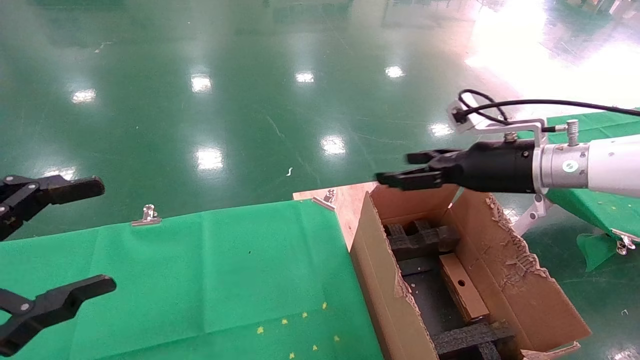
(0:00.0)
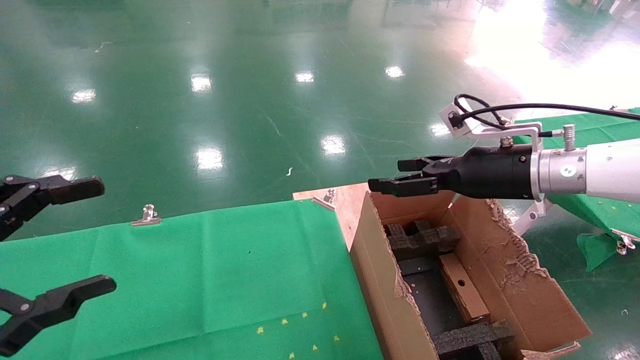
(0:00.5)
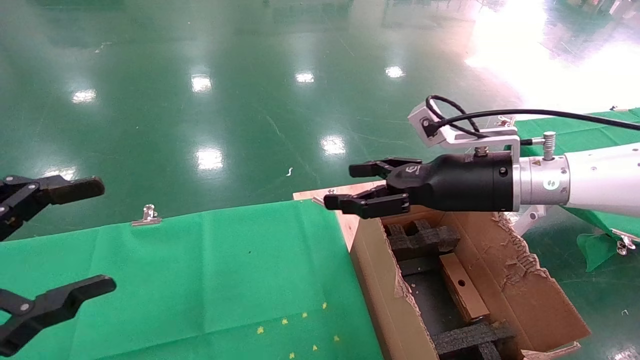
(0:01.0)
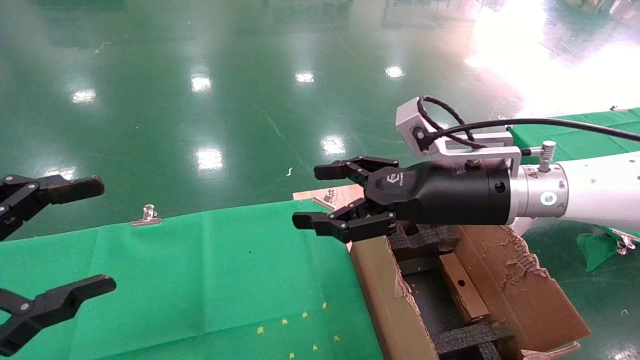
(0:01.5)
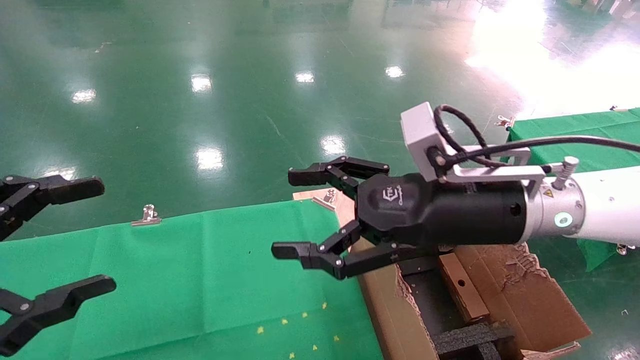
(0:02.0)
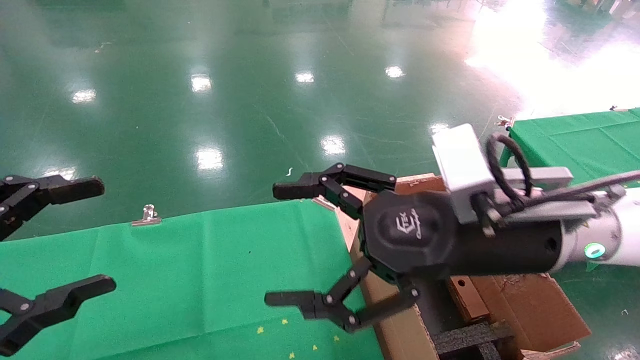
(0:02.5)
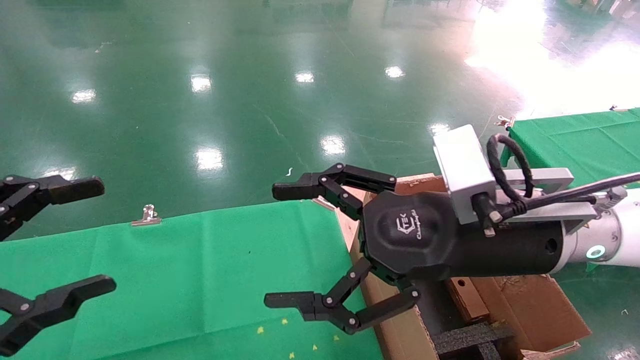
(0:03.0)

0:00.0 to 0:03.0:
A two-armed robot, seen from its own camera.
Task of the whole recording: using a robotic arm to pick up a cardboard box and palace it the carton.
0:00.0 to 0:01.5: The right gripper is displaced to the left and backward by about 10 cm.
0:01.5 to 0:03.0: The right gripper is displaced backward by about 10 cm.

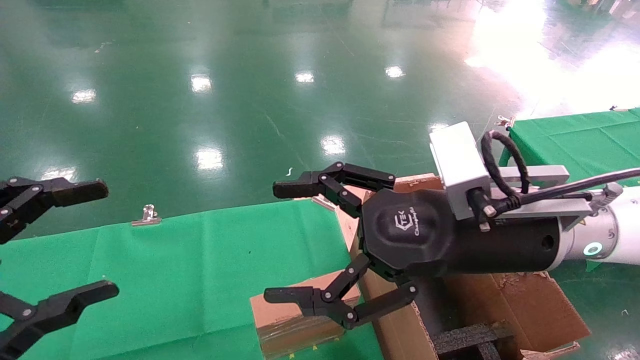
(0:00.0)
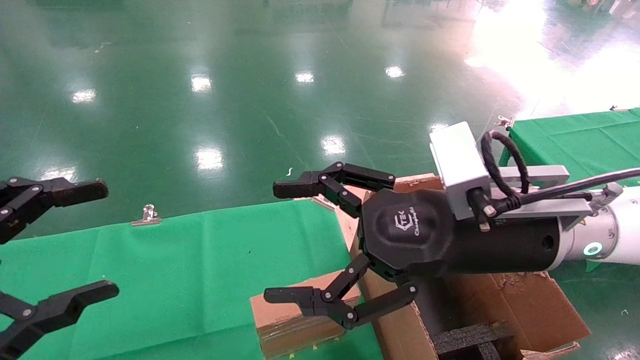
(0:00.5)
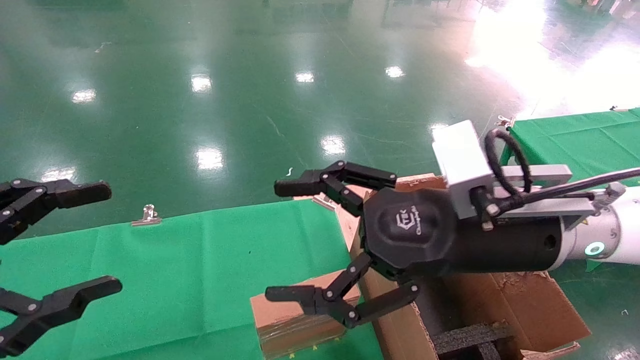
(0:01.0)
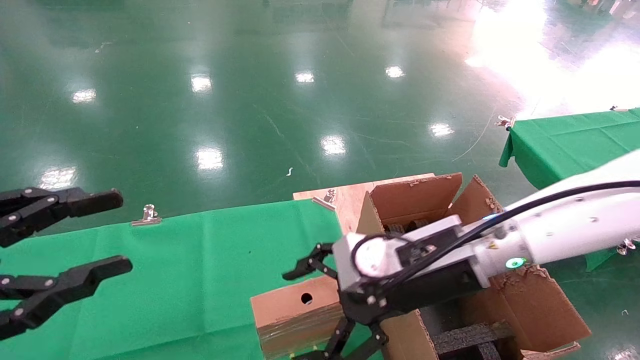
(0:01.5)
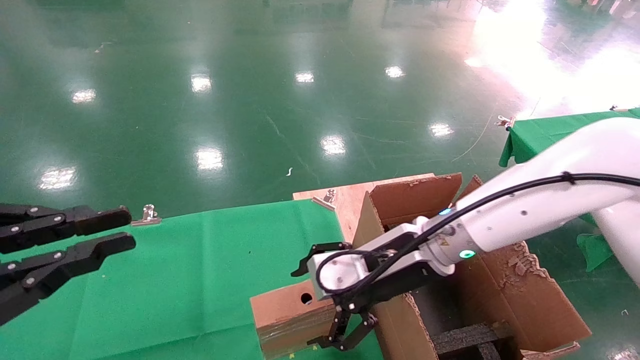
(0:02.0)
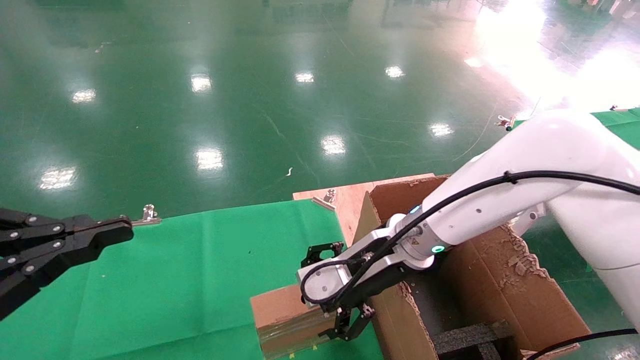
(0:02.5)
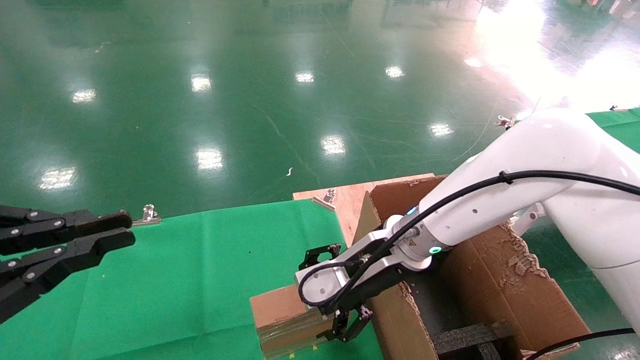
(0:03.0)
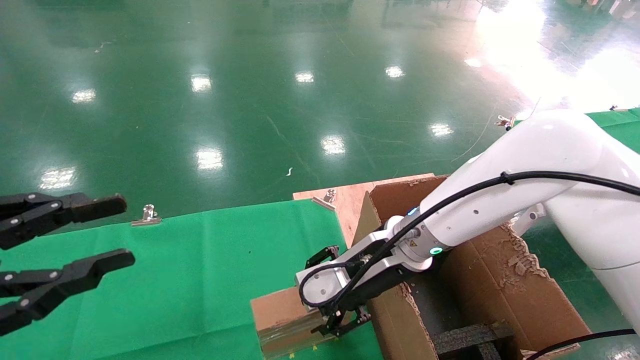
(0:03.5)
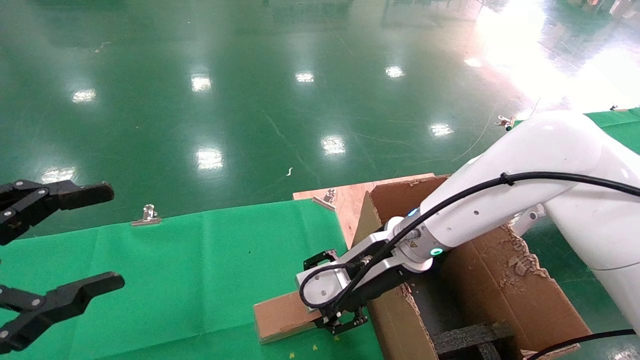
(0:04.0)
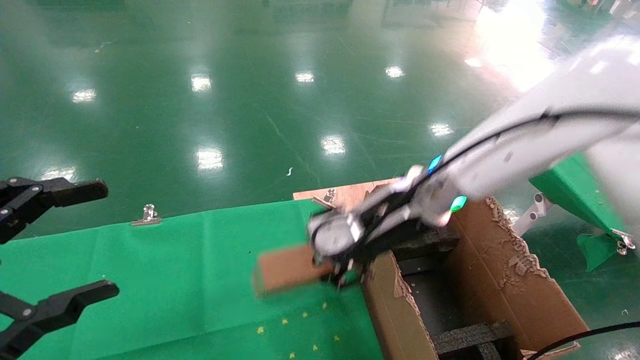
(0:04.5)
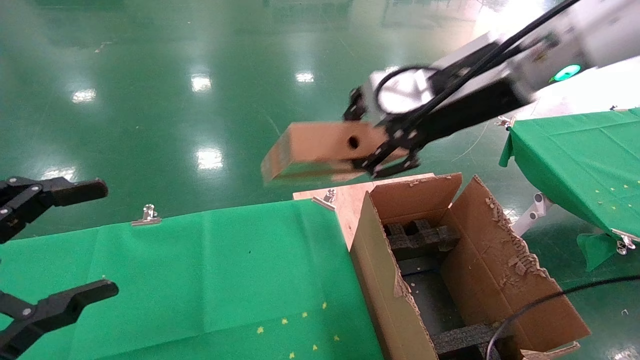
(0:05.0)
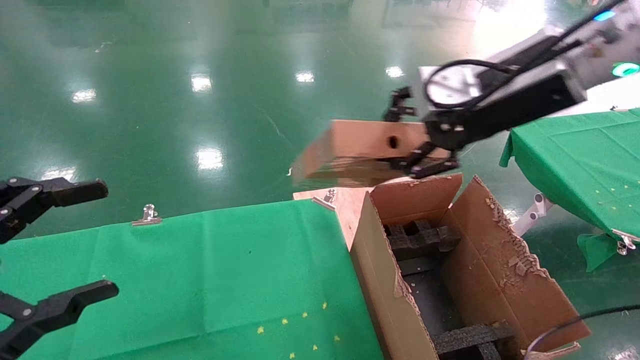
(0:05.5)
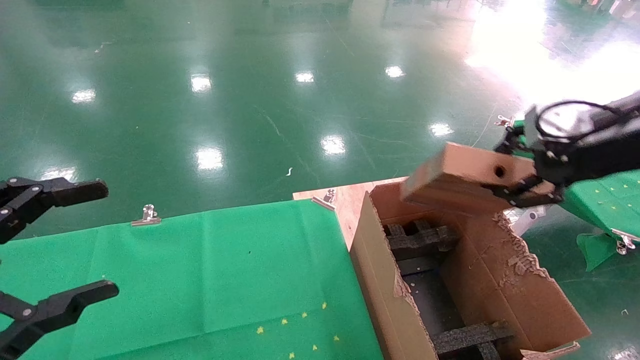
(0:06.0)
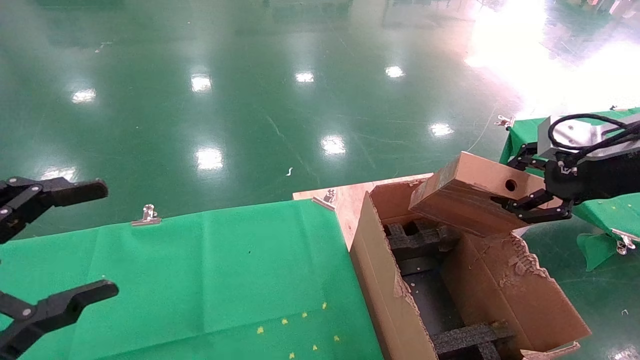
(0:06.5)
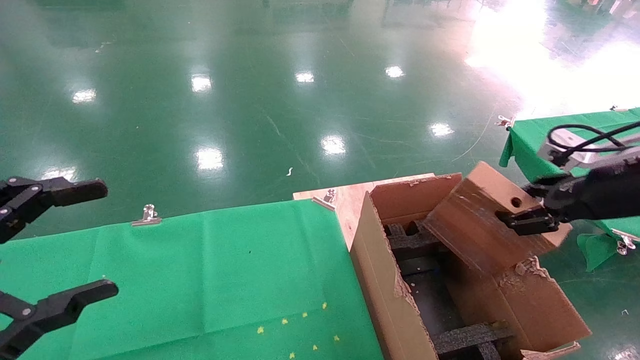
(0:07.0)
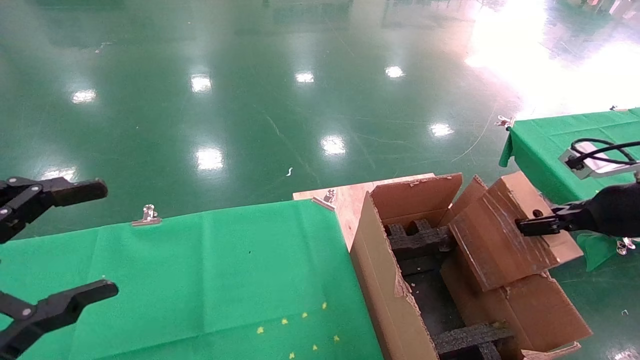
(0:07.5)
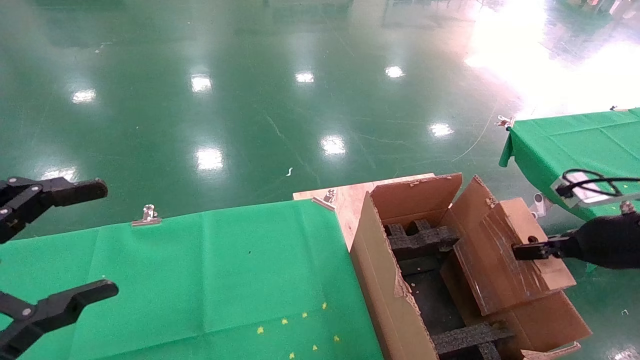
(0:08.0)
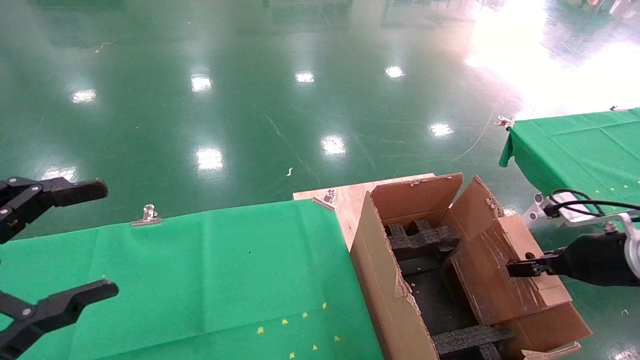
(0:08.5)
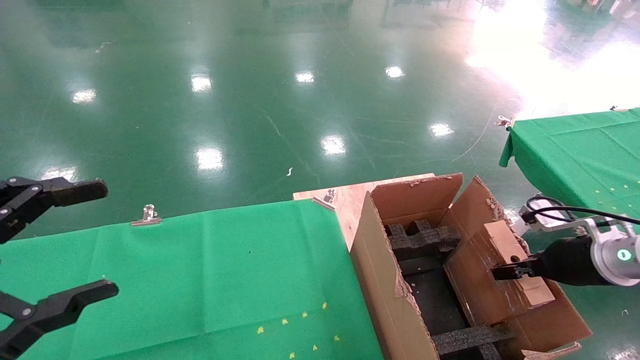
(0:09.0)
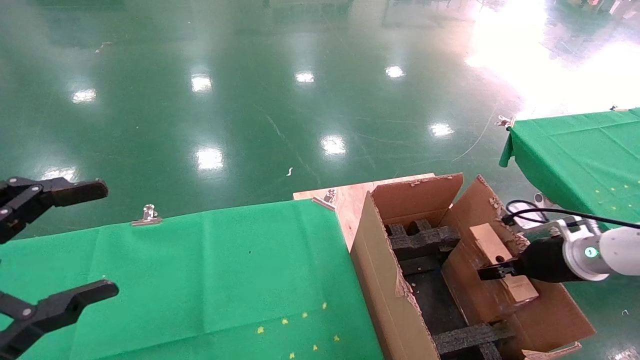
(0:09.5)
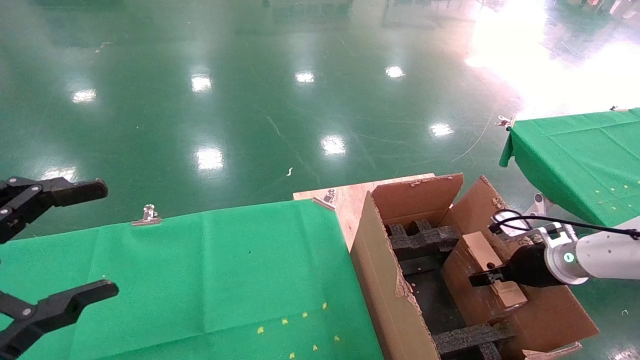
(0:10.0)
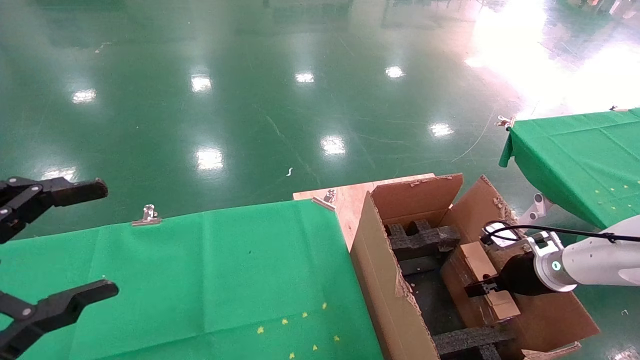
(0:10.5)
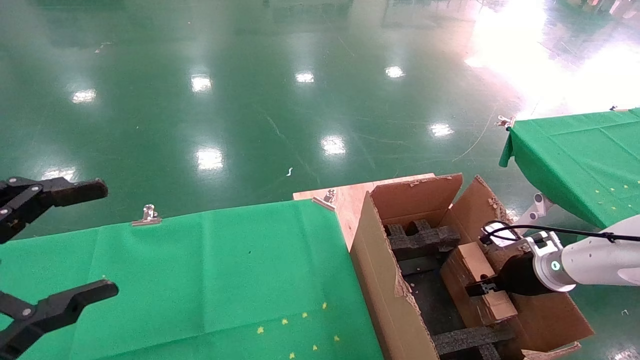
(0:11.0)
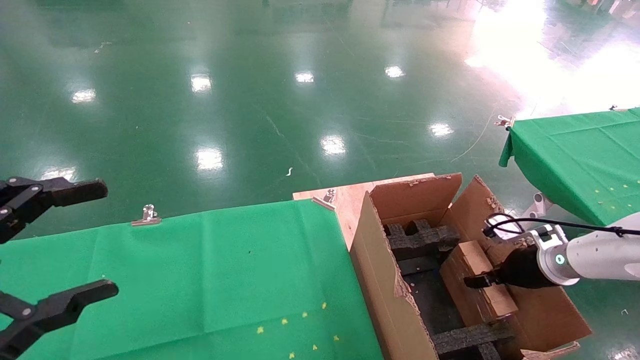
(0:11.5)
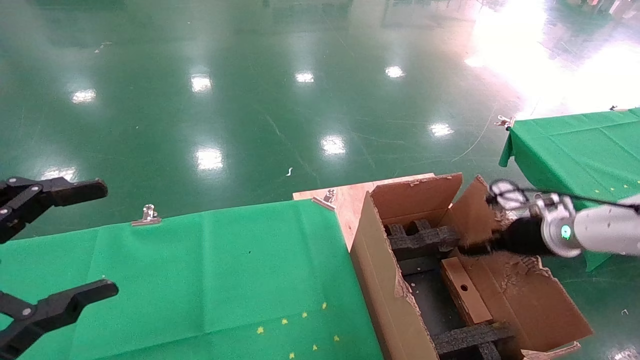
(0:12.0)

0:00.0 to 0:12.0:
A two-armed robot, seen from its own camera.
Task of the whole recording: using a robotic arm to pick up a cardboard box and palace it the carton.
Step, 0:01.5 to 0:04.0: Pick up the mouse and the power cord paper box.
0:00.0 to 0:02.0: The right gripper is displaced forward and downward by about 10 cm. The left gripper closes.
0:02.0 to 0:04.0: The left gripper opens up, while the right gripper closes.
0:04.0 to 0:06.0: The right gripper goes about 30 cm to the right and upward.
0:06.0 to 0:08.0: The right gripper is displaced downward and to the right by approximately 15 cm.
0:08.0 to 0:10.0: The right gripper shifts approximately 15 cm downward and forward.
0:10.0 to 0:12.0: The right gripper travels upward by roughly 5 cm, and opens up.

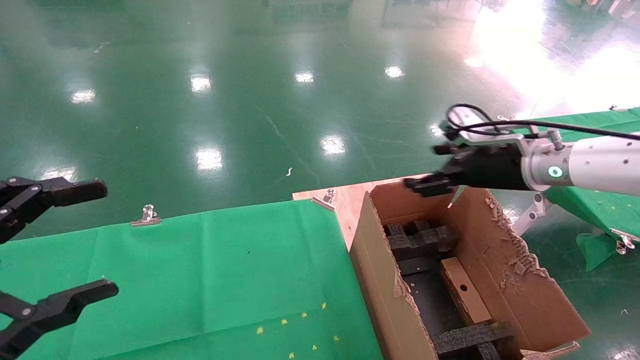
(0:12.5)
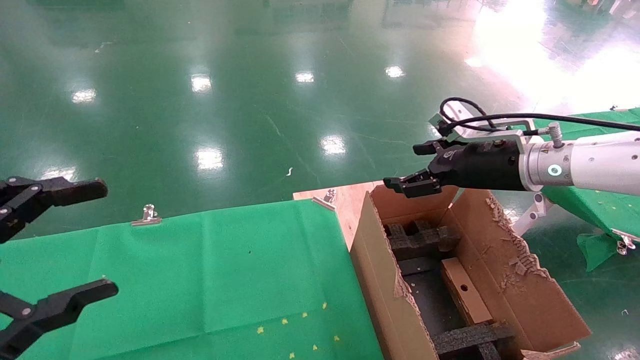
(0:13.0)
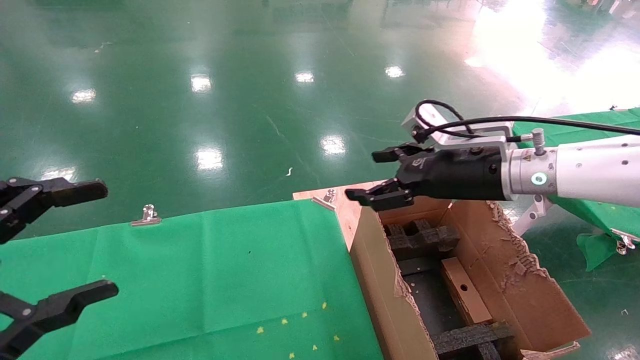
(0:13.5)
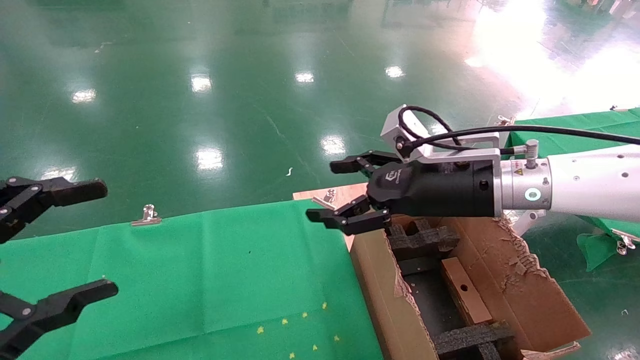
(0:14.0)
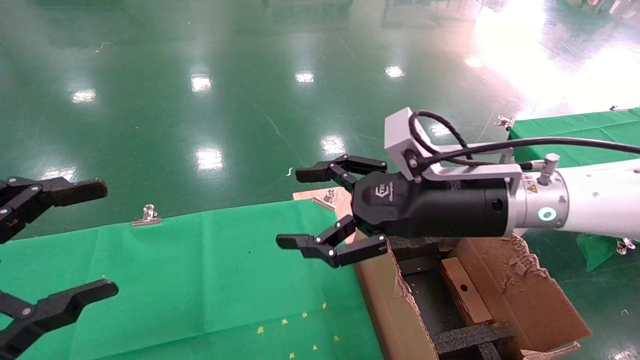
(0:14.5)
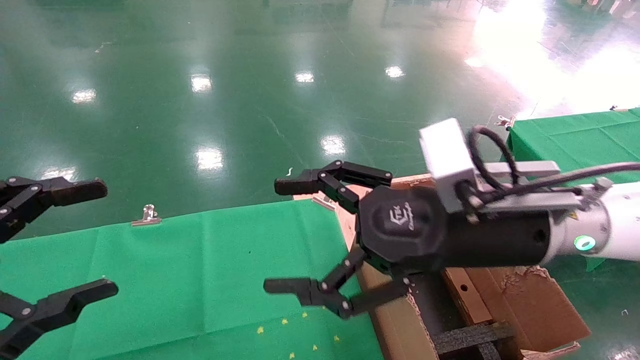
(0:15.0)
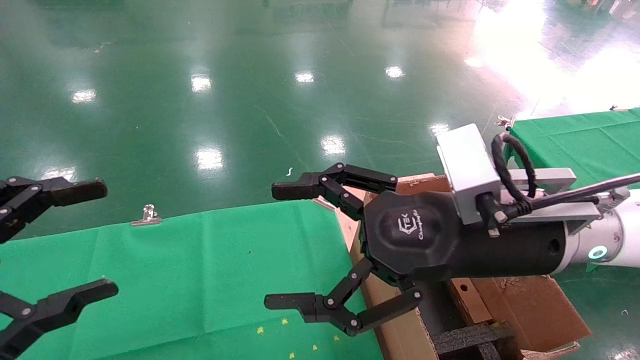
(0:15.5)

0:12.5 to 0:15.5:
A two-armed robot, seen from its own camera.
Task of the whole recording: using a robotic arm to pick up a cardboard box and palace it the carton.
0:12.5 to 0:14.0: The right gripper moves to the left and backward, approximately 15 cm.
0:14.0 to 0:15.5: The right gripper heads backward, covering approximately 10 cm.
